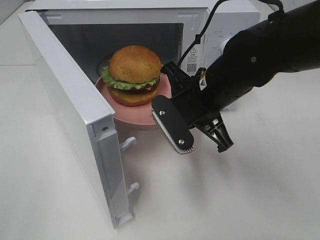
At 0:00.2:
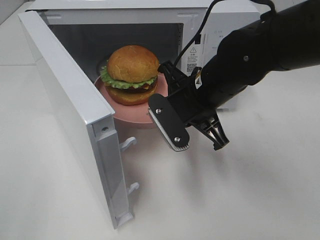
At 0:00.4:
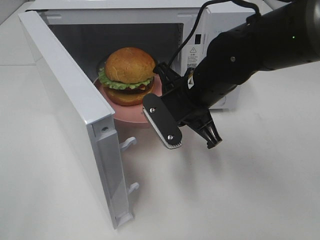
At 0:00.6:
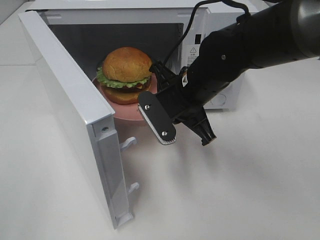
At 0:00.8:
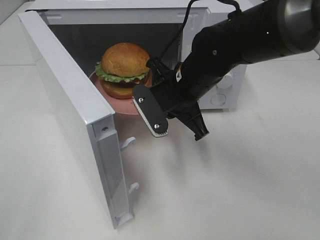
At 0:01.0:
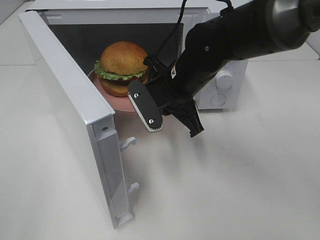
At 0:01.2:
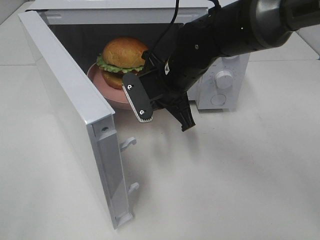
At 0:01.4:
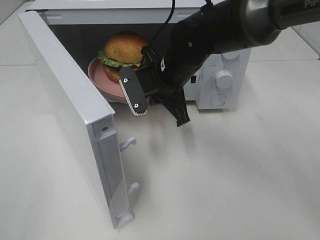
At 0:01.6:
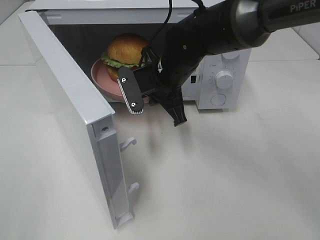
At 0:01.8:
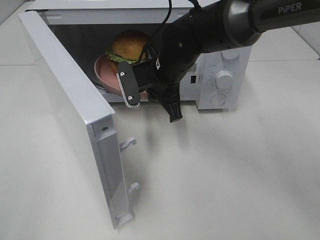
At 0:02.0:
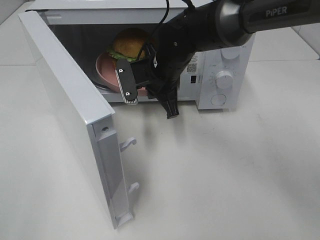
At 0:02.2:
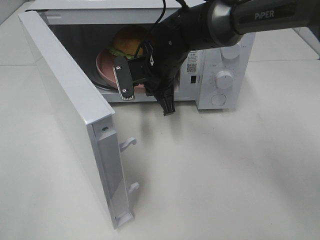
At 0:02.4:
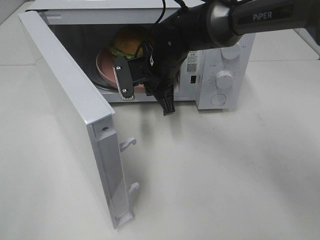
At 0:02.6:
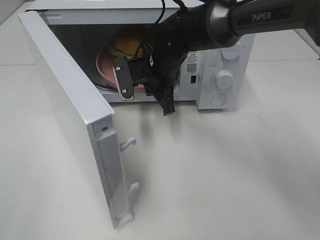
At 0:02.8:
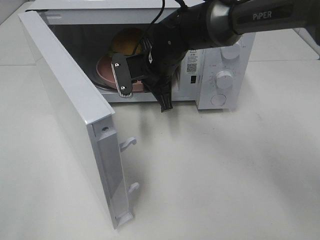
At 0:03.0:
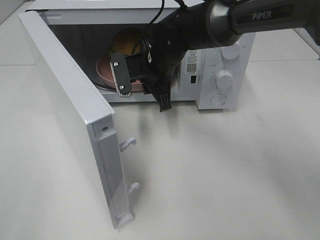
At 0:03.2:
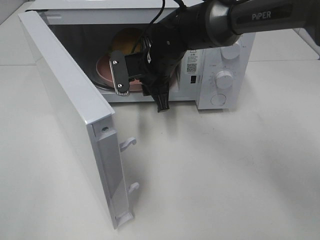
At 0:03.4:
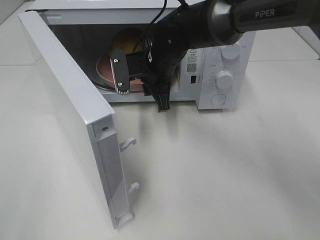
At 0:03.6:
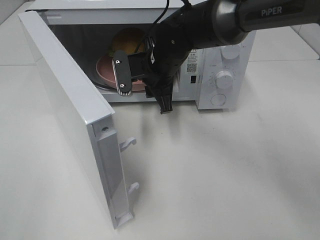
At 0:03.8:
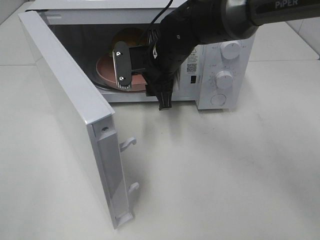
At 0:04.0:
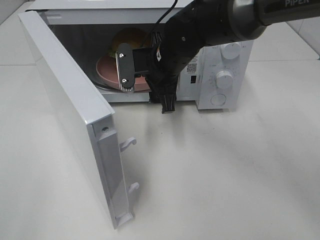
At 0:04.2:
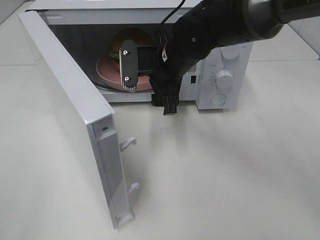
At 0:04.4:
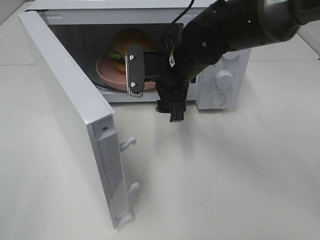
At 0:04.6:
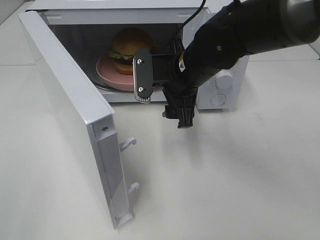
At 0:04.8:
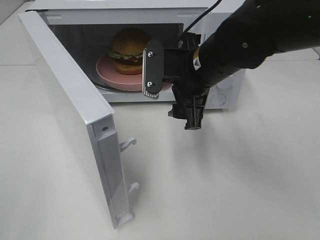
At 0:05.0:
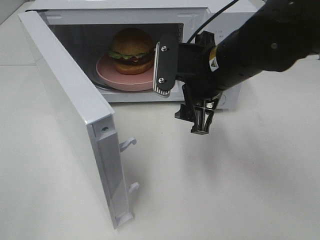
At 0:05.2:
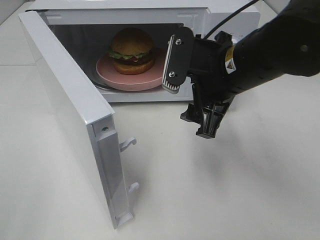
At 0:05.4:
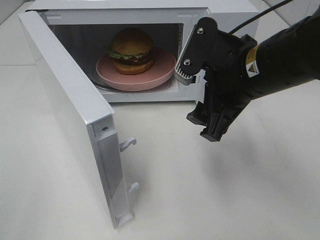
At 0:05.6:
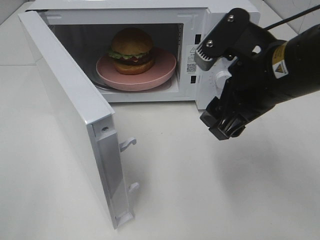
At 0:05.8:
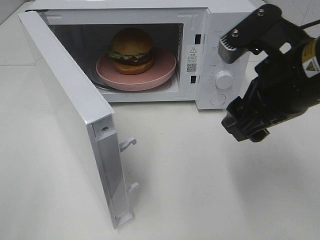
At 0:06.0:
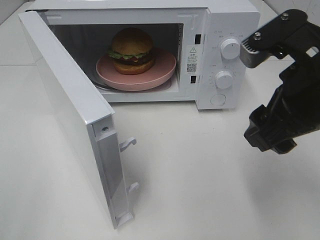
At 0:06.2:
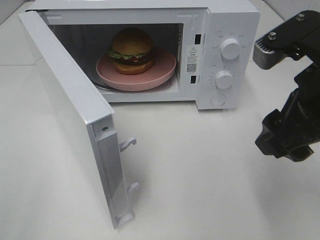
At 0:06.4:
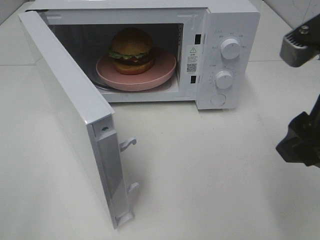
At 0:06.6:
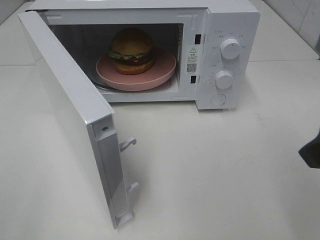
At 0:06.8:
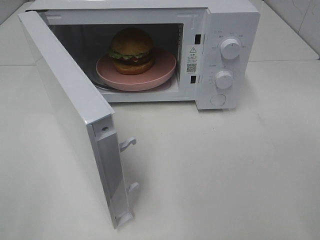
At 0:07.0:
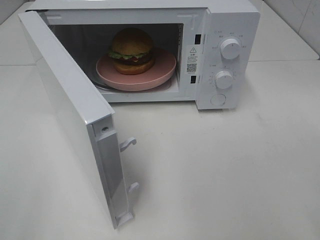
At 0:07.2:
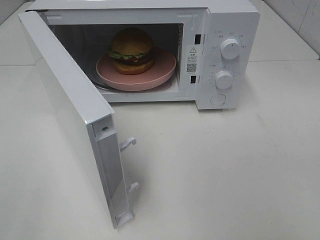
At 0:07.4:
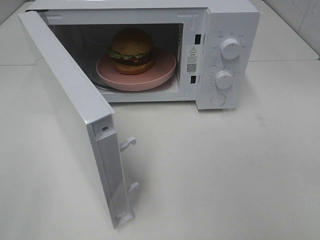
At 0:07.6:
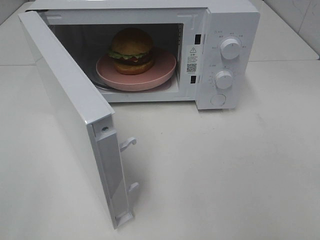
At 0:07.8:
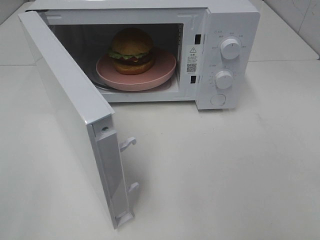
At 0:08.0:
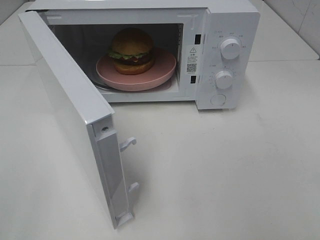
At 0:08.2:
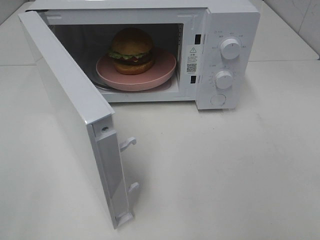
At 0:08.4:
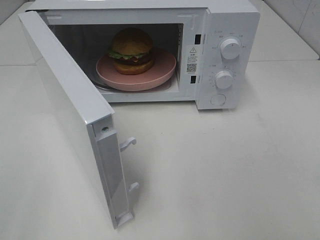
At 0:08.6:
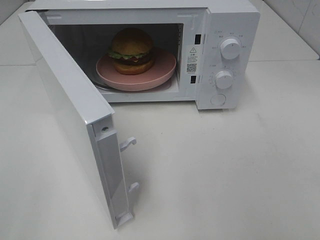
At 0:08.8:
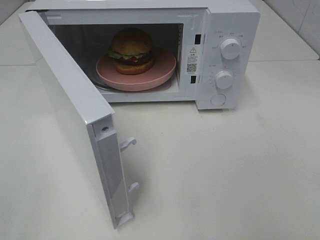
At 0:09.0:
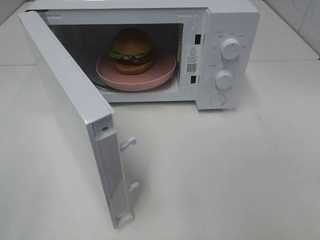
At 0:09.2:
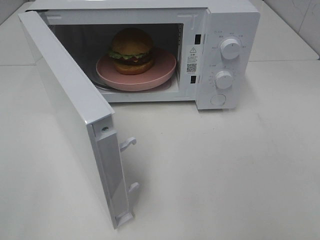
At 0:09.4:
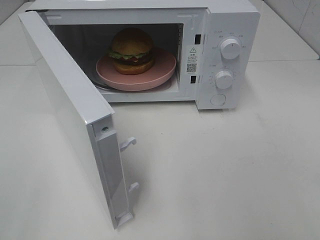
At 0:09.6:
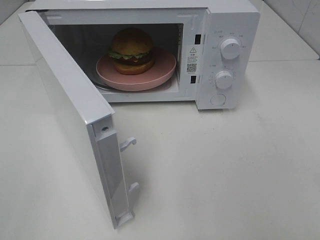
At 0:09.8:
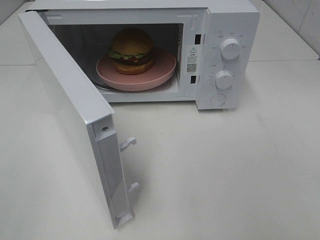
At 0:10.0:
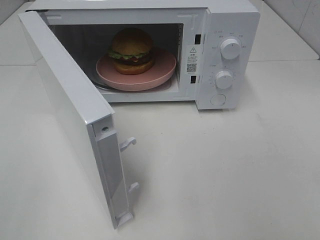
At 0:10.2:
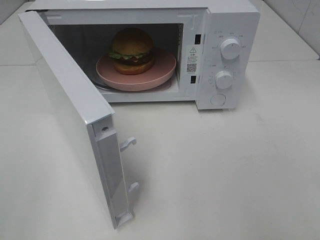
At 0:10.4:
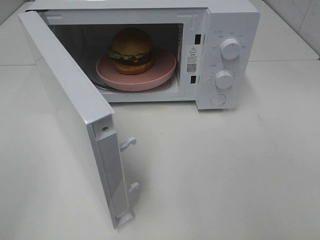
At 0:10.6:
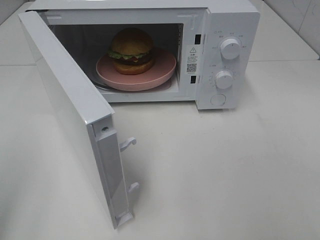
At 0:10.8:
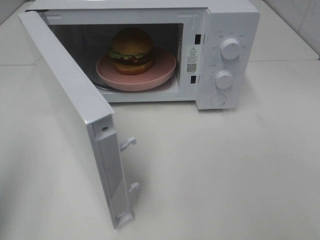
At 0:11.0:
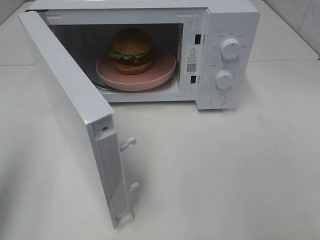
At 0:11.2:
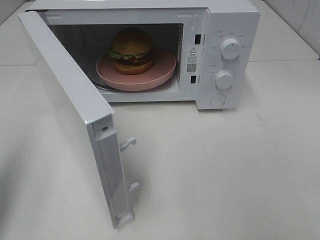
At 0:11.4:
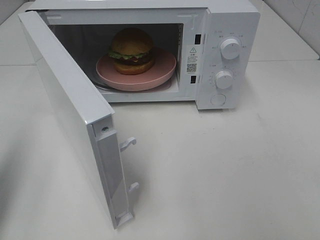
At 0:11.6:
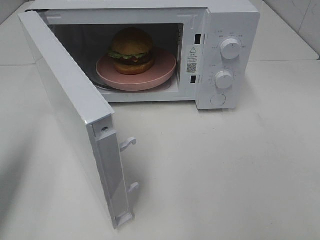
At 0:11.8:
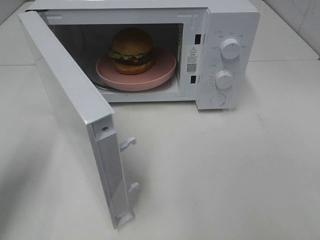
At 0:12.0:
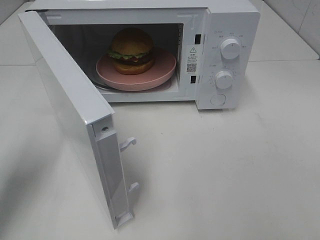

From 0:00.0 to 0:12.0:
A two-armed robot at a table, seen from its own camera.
Task of the whole recording: Heat the burger.
Step, from 0:00.0 to 0:02.8: Right hand: place the plate in the microwave.
From 0:00.0 to 0:01.6: The right gripper moves forward and to the left, some 10 cm.
From 0:01.6 to 0:03.0: The grippers make only small movements.
From 0:03.0 to 0:04.4: The right gripper heads backward, covering some 5 cm, and opens up.
From 0:04.4 to 0:06.0: The right gripper heads backward, to the right and upward, covering about 25 cm.
From 0:06.0 to 0:07.6: The right gripper shifts approximately 20 cm backward and to the right.
From 0:10.4 to 0:12.0: The left gripper moves forward and downward, roughly 20 cm, and closes.

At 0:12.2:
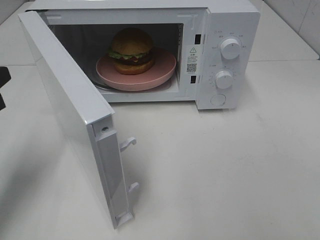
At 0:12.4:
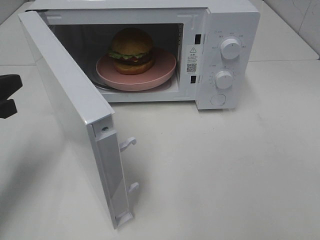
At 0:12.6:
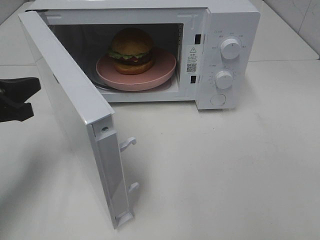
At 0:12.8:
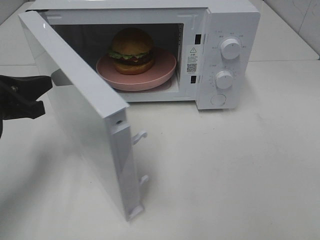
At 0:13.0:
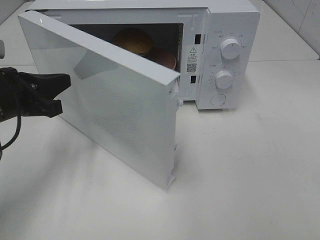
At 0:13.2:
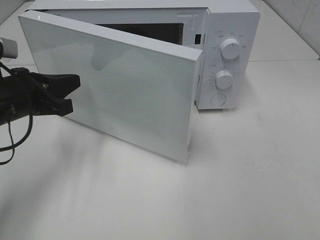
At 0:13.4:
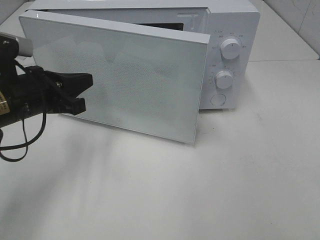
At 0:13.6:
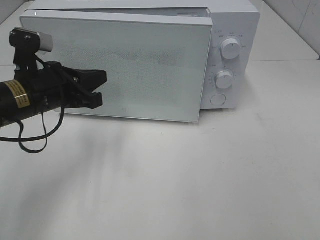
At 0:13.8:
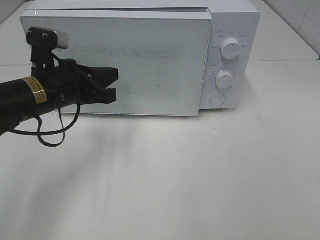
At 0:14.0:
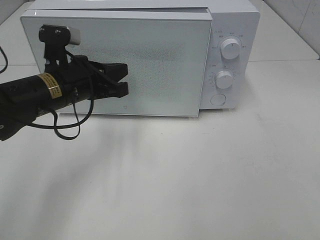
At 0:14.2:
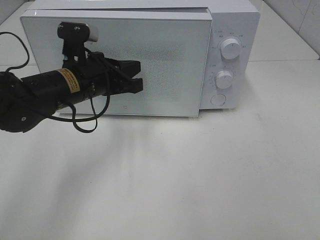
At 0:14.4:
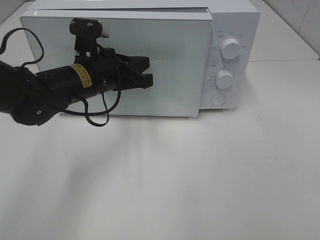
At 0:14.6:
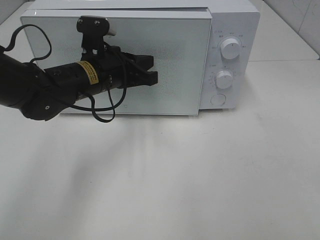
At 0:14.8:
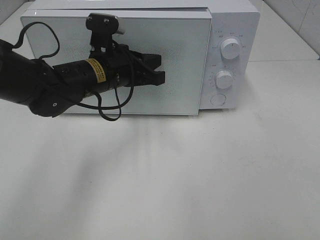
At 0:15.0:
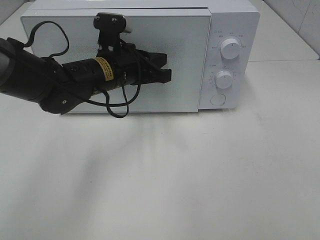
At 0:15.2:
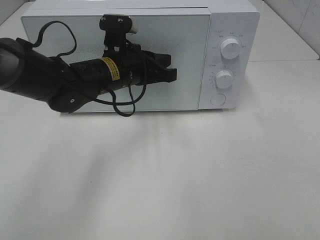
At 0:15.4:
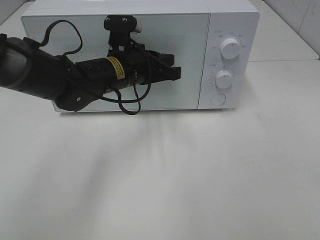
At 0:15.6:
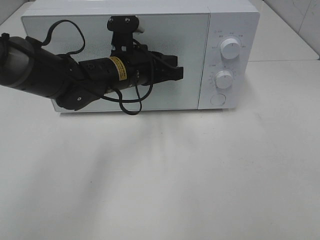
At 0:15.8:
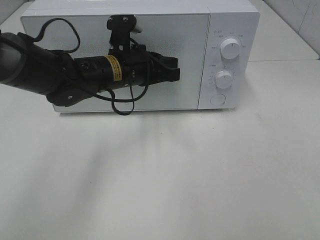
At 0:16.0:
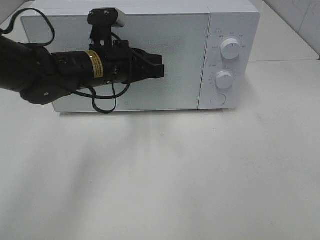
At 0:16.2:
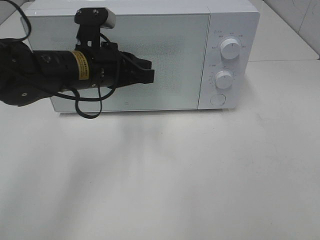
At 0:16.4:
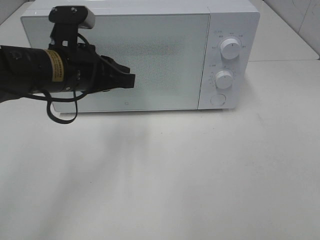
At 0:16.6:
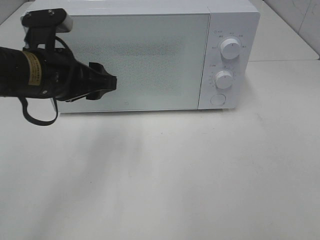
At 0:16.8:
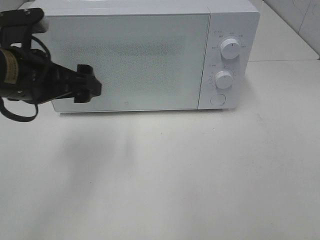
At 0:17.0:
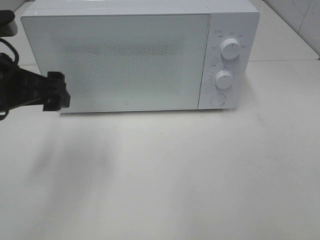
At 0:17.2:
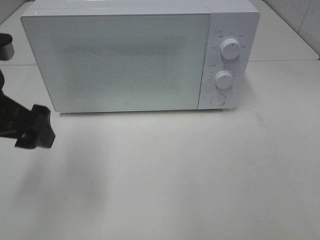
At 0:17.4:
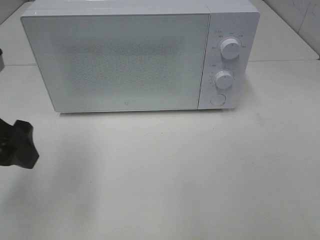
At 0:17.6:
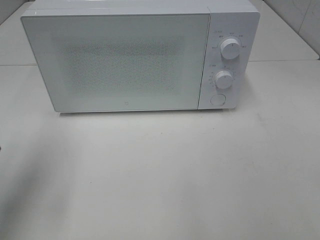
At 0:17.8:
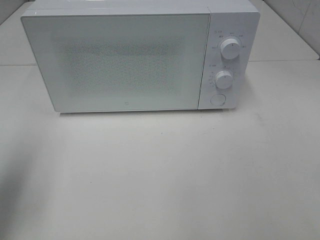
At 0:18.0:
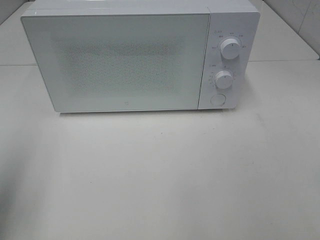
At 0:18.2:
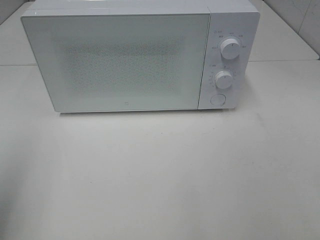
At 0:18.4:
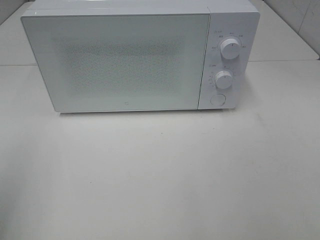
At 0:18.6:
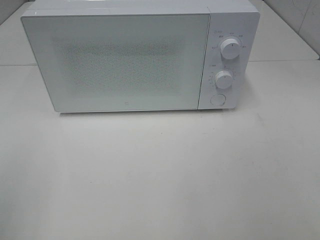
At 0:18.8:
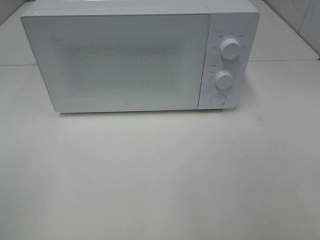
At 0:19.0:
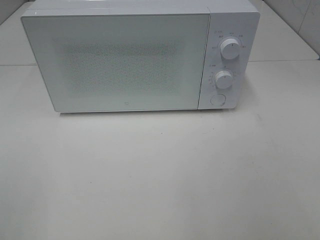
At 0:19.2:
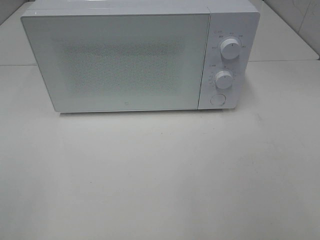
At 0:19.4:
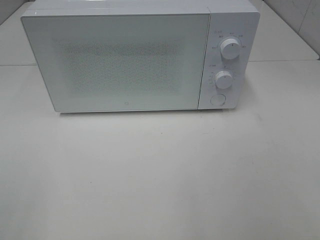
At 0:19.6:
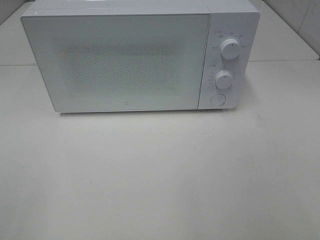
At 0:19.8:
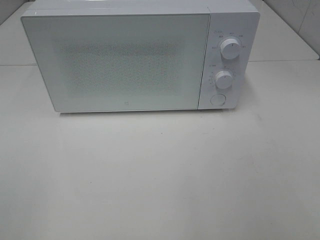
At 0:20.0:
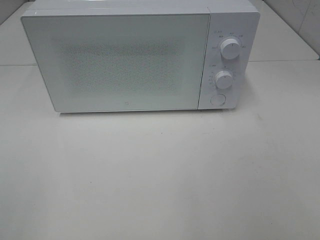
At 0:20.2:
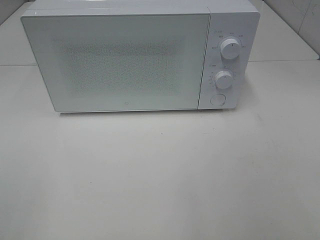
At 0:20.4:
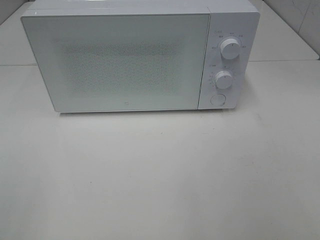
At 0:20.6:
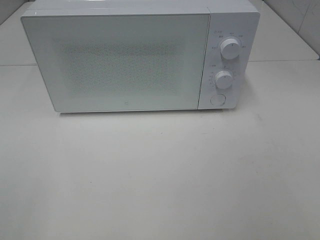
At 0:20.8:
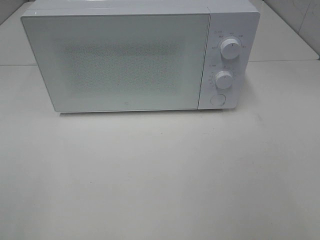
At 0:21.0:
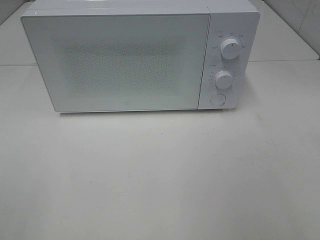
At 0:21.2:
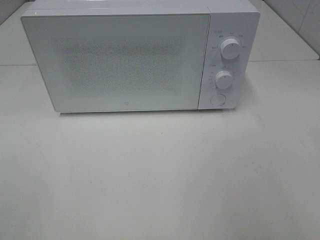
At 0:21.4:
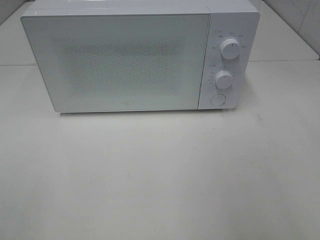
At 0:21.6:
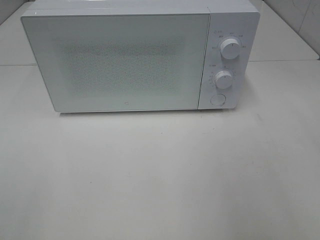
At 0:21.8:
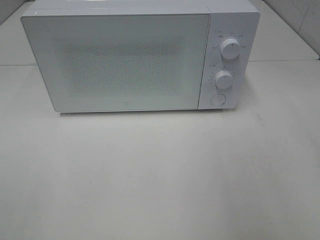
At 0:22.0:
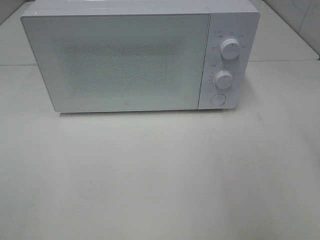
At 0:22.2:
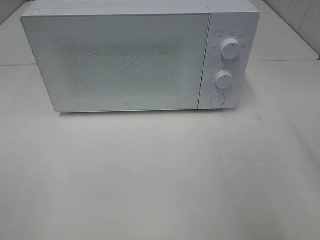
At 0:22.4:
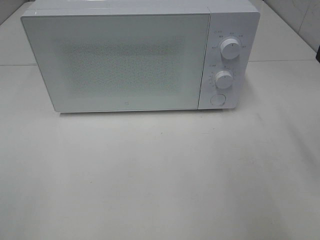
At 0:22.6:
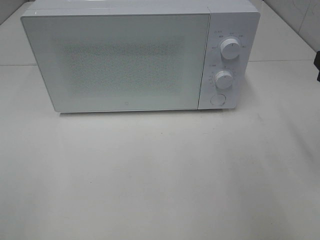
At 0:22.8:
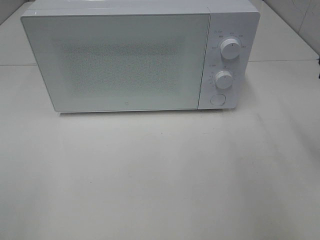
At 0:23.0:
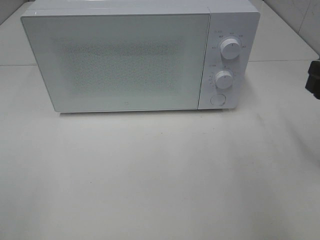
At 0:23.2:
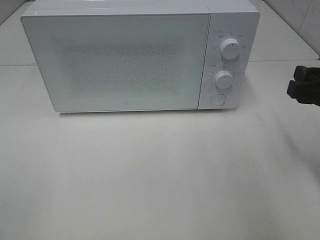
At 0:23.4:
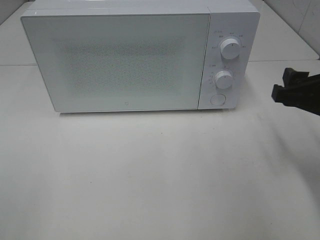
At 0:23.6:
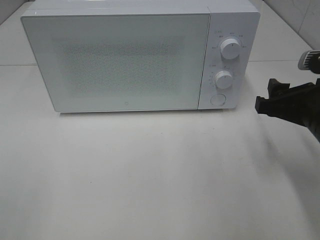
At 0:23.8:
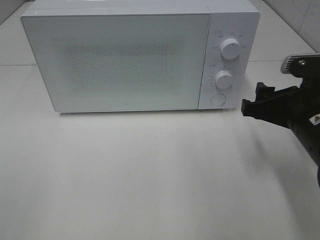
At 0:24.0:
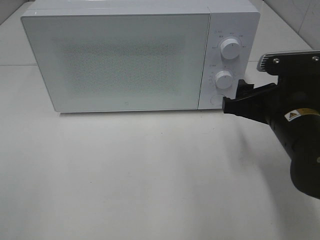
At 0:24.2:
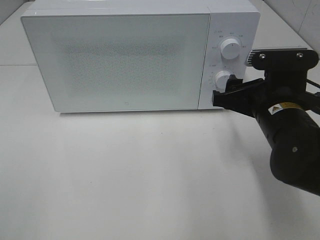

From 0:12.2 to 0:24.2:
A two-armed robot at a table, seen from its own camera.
Task of the whole recording: Heat the burger.
Step, from 0:12.2 to 0:15.6: Left hand: close the microwave door.
From 0:12.2 to 0:13.8: The left gripper heads to the right and forward, covering approximately 15 cm.
From 0:13.8 to 0:15.2: The left gripper goes about 10 cm to the right and forward.
From 0:15.2 to 0:16.6: The left gripper is displaced to the left, backward and upward by roughly 15 cm, and opens.
From 0:16.6 to 0:18.2: The left gripper is displaced to the left, backward and upward by approximately 25 cm, and opens its fingers.
From 0:22.6 to 0:24.2: The right gripper goes about 15 cm to the left and downward.
